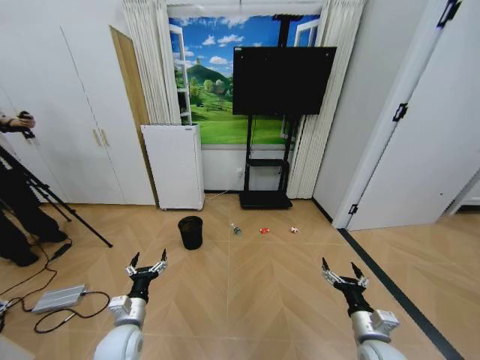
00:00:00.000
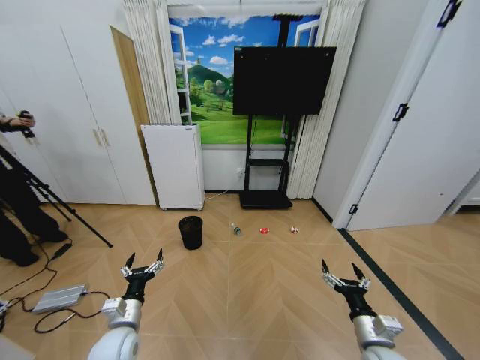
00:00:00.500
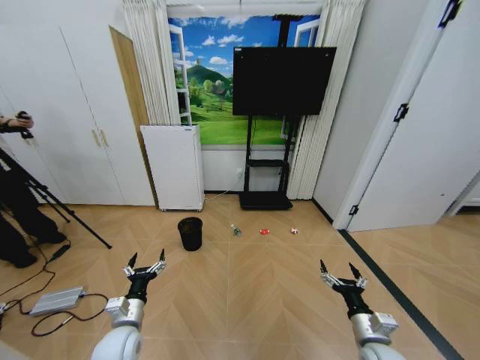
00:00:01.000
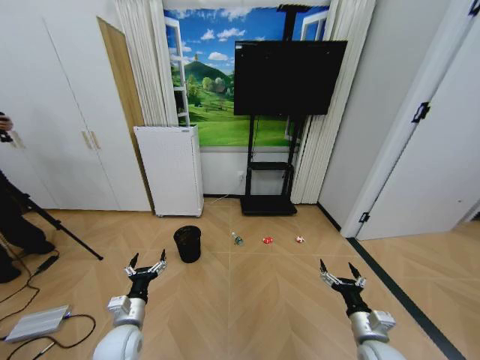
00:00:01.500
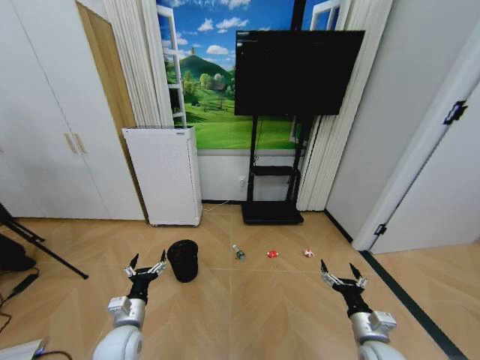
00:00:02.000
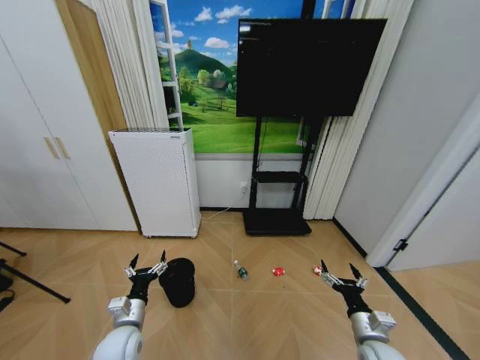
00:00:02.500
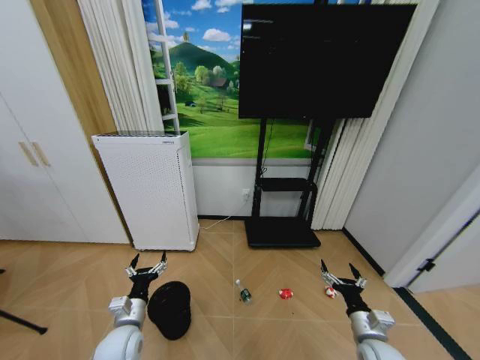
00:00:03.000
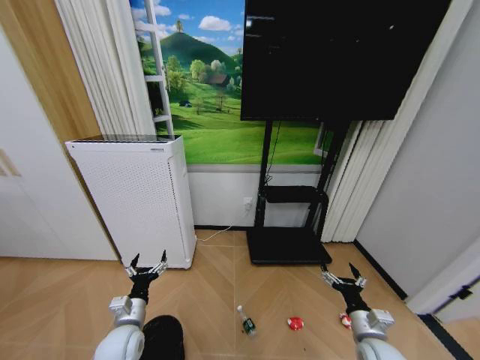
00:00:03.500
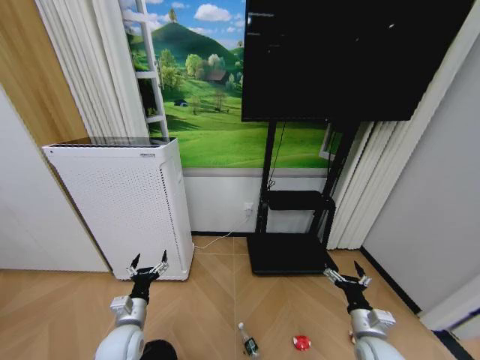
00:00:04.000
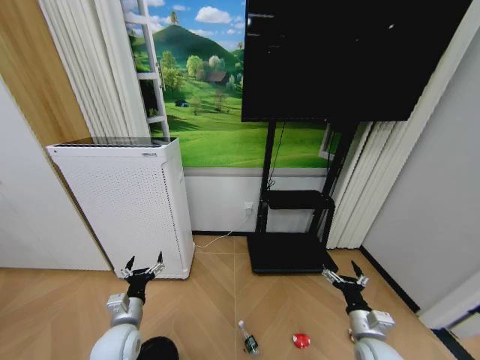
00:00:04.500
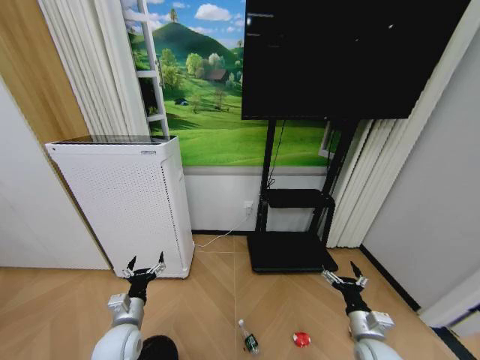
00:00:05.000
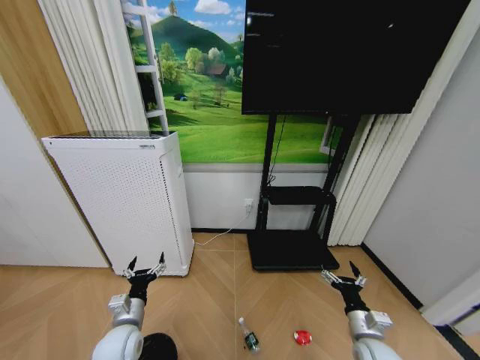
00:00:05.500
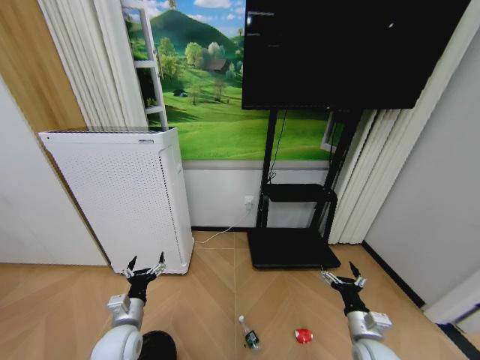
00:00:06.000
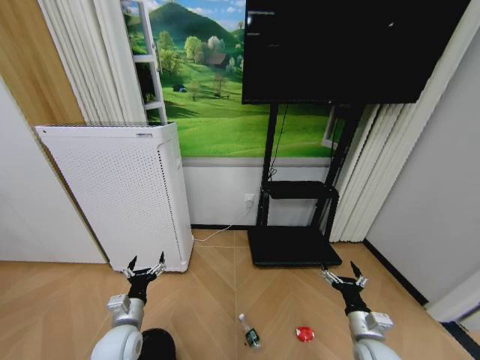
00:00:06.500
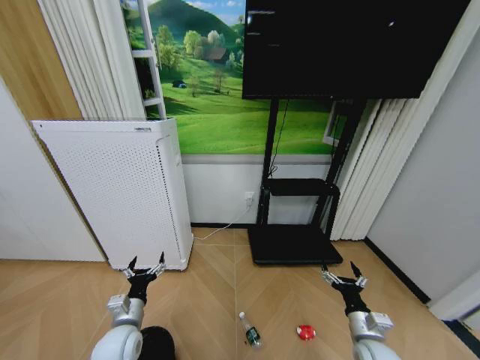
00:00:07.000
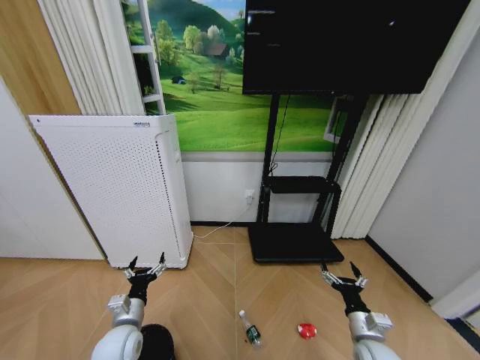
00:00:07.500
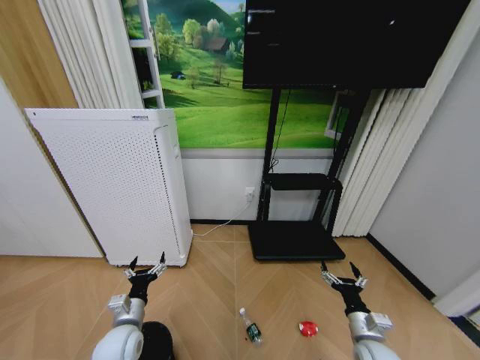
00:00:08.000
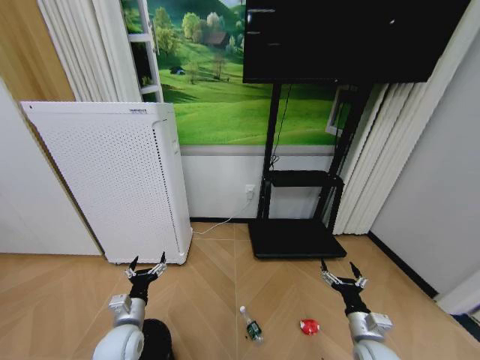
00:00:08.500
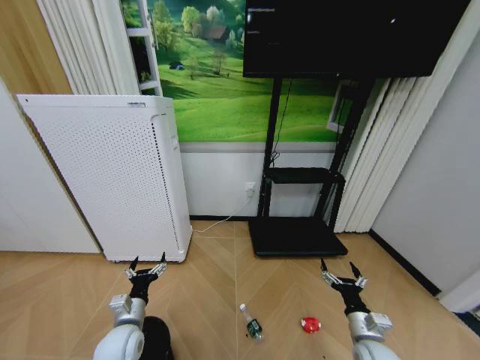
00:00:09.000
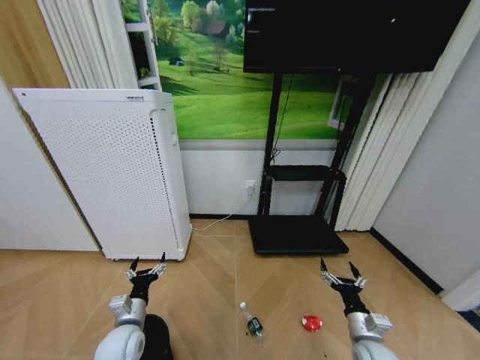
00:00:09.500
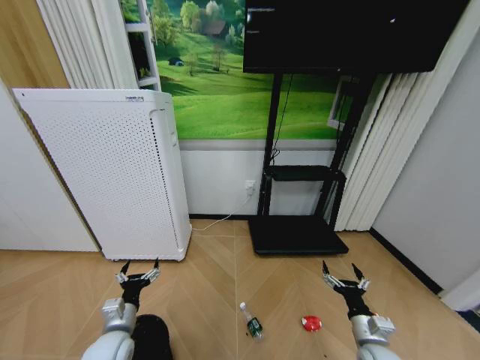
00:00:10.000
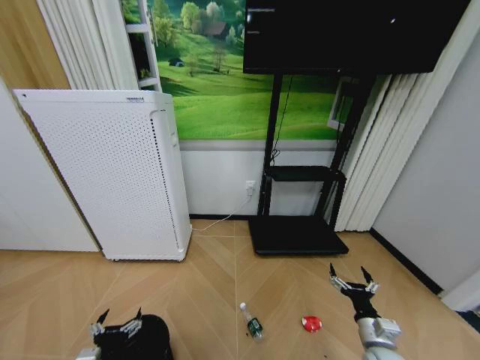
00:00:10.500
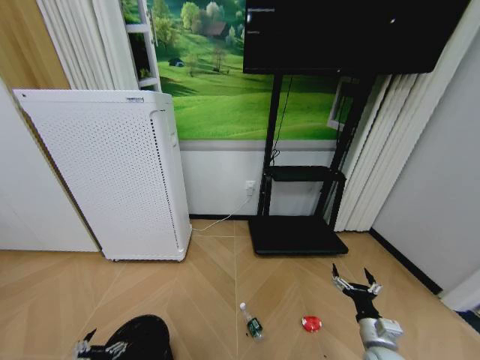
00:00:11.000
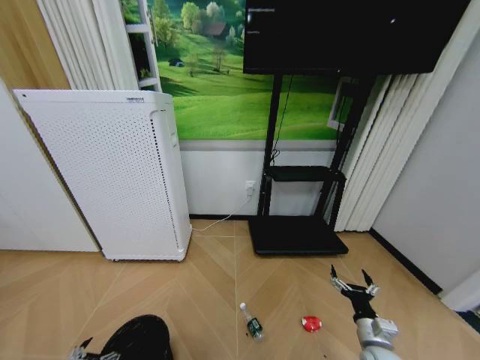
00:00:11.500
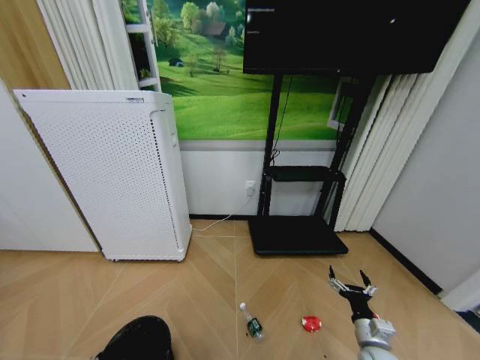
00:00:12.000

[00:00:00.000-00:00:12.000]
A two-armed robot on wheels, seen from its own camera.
Task of the whole recording: Pick up the trash bin and place the garbage on the floor into it.
00:00:04.000 to 00:00:06.000: The grippers move only a little.
00:00:06.000 to 00:00:08.000: Both grippers stay about where they are.
00:00:08.000 to 00:00:10.000: The grippers move only a little.
00:00:10.000 to 00:00:12.000: The left gripper travels backward, to the left and downward by approximately 15 cm.

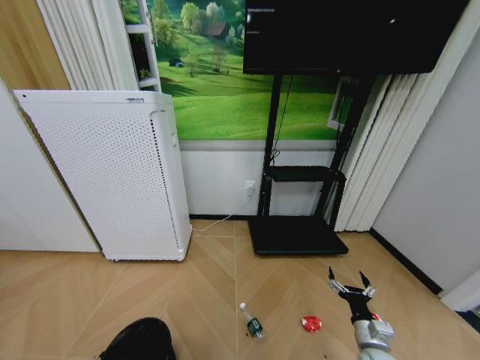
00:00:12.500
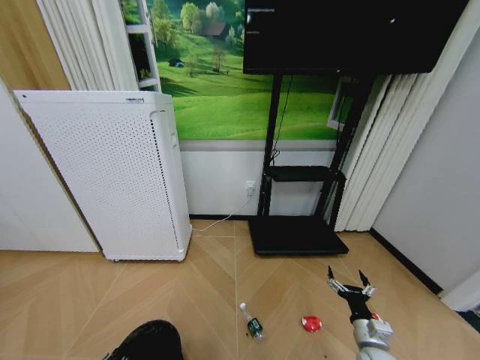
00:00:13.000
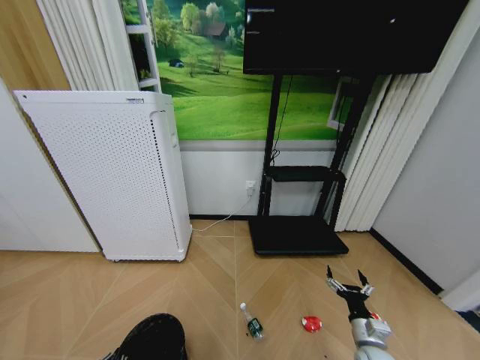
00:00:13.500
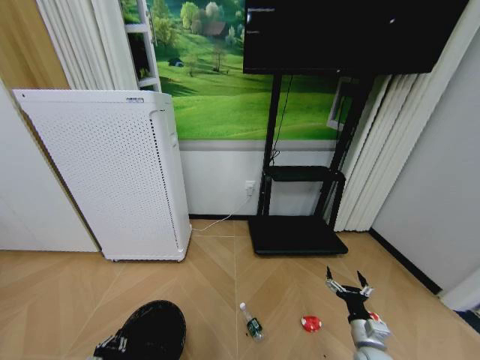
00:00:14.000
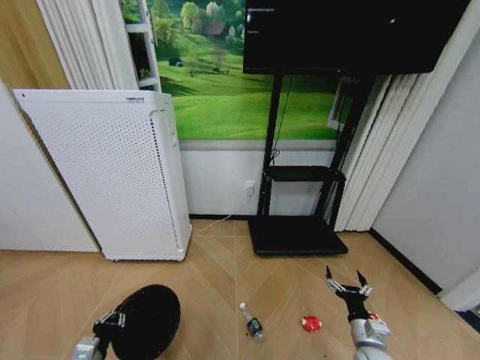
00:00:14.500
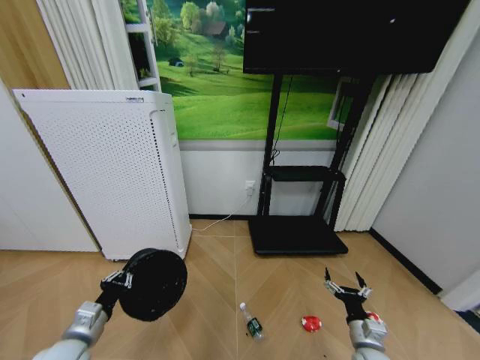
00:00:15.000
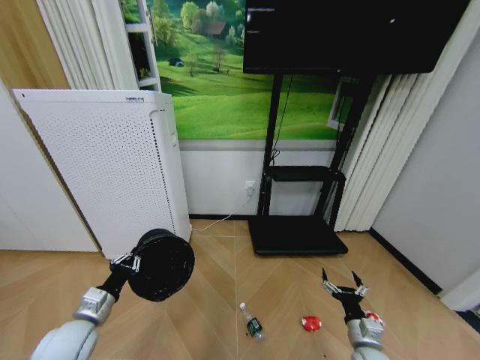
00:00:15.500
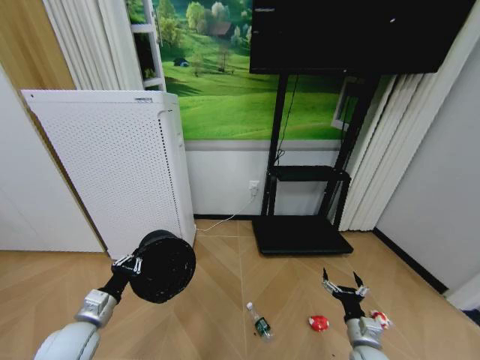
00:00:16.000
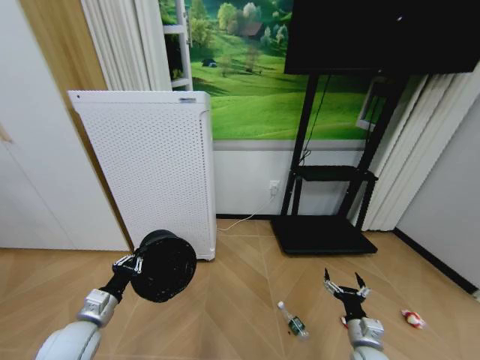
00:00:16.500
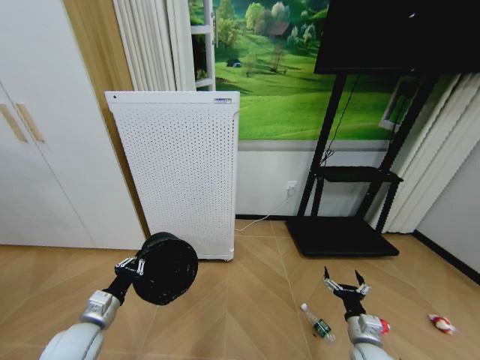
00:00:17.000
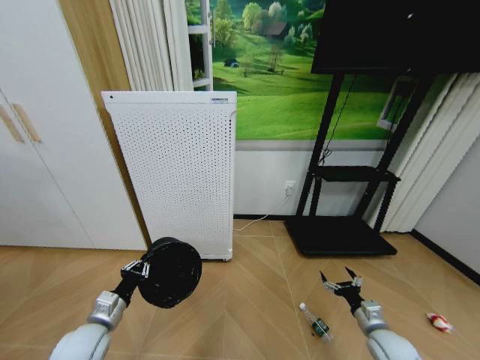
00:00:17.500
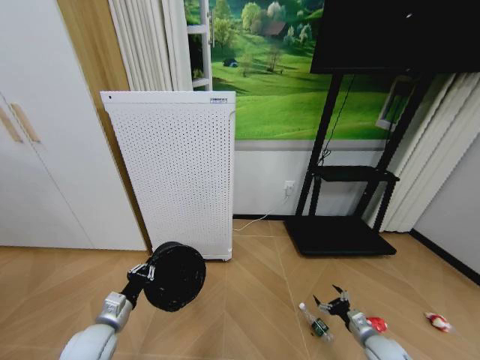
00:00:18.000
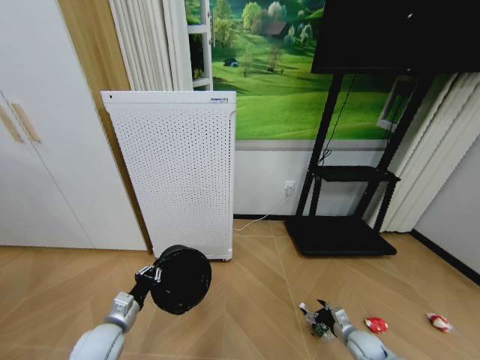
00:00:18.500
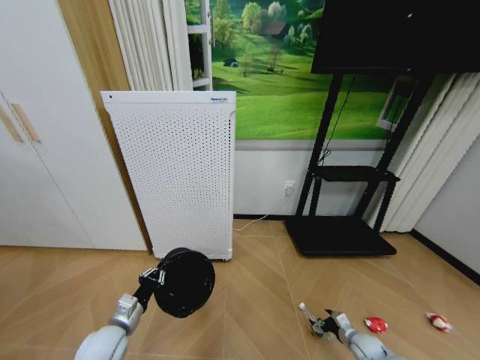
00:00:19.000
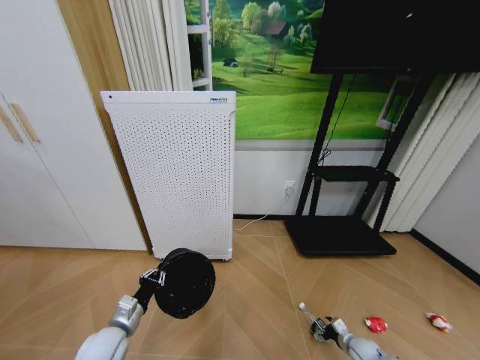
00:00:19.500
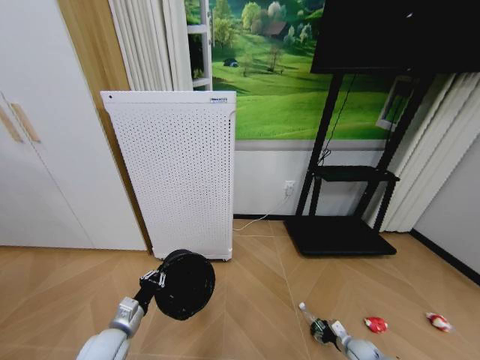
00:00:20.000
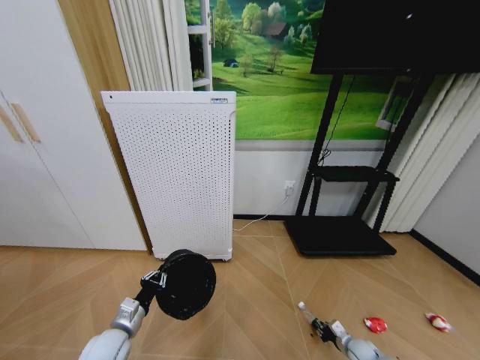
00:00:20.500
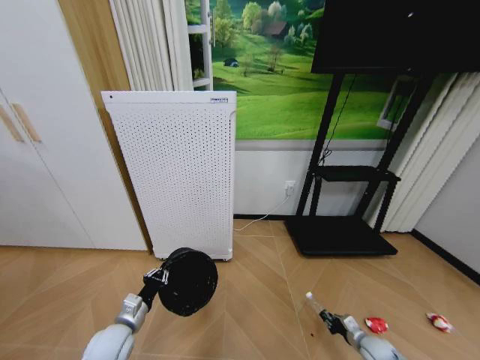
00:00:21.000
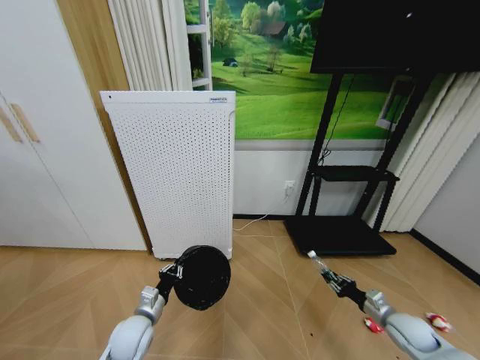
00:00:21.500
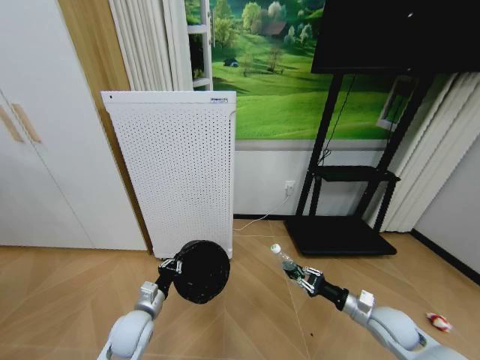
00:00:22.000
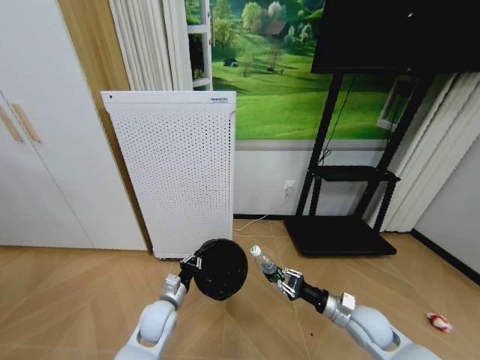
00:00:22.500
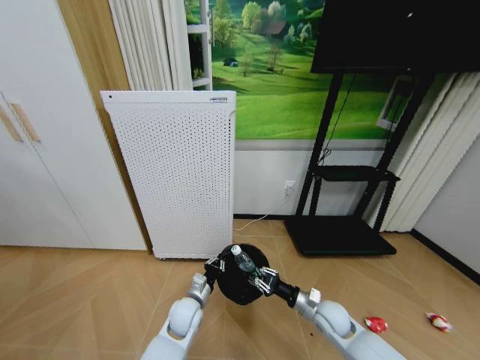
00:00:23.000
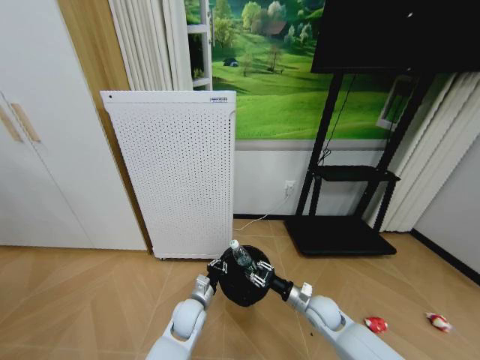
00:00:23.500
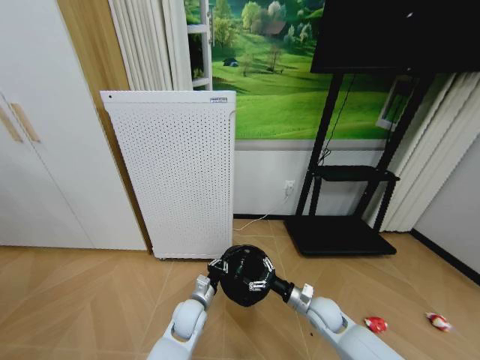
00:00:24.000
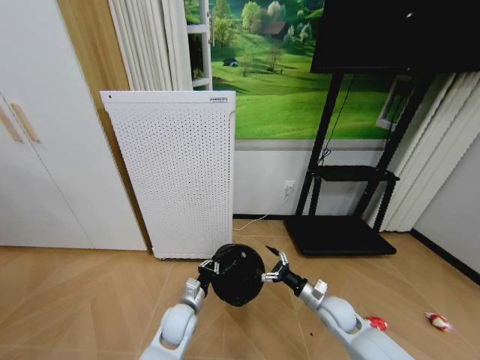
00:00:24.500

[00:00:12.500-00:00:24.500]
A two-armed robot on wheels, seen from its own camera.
Task of the whole recording: Pick up the trash bin and place the garbage on the floor into it.
00:00:12.500 to 00:00:14.500: The left gripper travels upward by some 5 cm, and closes.
00:00:14.500 to 00:00:16.500: The left gripper heads forward and upward, covering about 10 cm.
00:00:16.500 to 00:00:18.500: The left gripper changes place by roughly 5 cm; the right gripper shifts some 15 cm downward, to the right and forward.
00:00:18.500 to 00:00:20.500: The right gripper travels downward by roughly 5 cm, and closes its fingers.
00:00:20.500 to 00:00:22.500: The left gripper is displaced to the right and forward by about 10 cm. Meanwhile the right gripper shifts about 25 cm upward and to the left.
00:00:22.500 to 00:00:24.500: The left gripper goes about 5 cm to the right; the right gripper travels to the left by roughly 5 cm, and opens up.

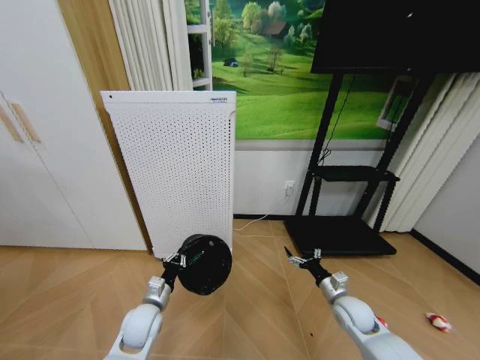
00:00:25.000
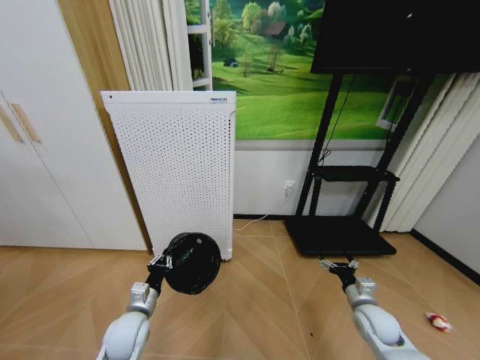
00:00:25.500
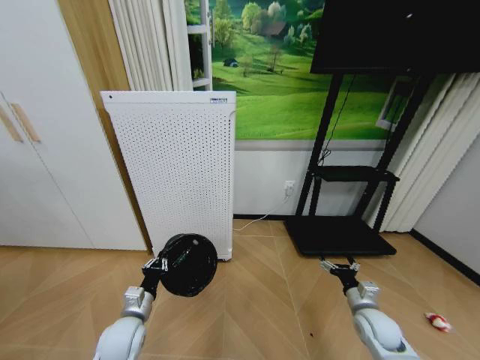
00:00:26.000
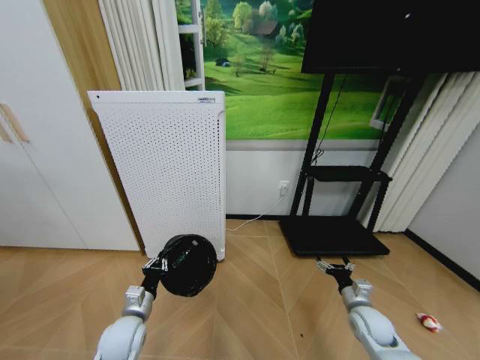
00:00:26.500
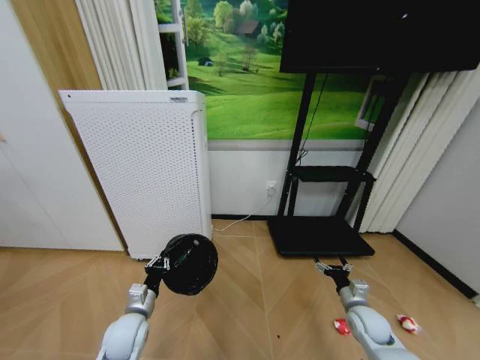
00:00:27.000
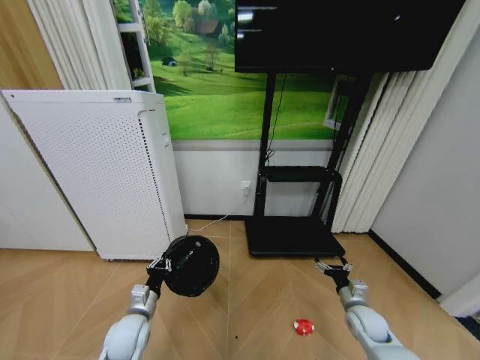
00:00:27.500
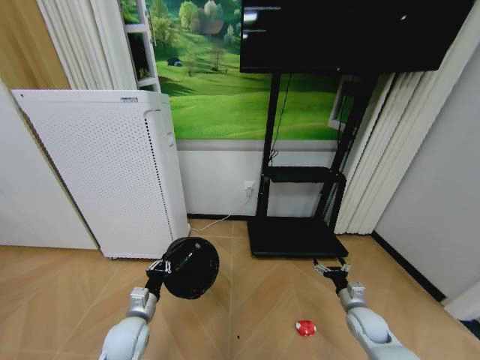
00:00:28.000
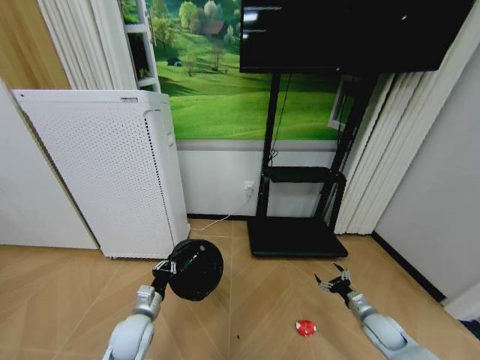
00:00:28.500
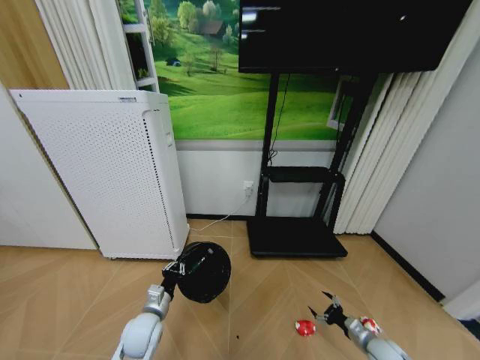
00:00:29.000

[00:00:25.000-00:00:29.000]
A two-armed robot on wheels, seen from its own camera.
Task of the whole recording: Pick up the trash bin and place the garbage on the floor into it.
00:00:25.000 to 00:00:27.000: The right gripper shifts by roughly 5 cm.
00:00:27.000 to 00:00:29.000: The right gripper is displaced downward, to the right and backward by some 15 cm.
